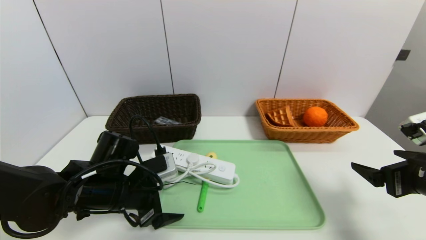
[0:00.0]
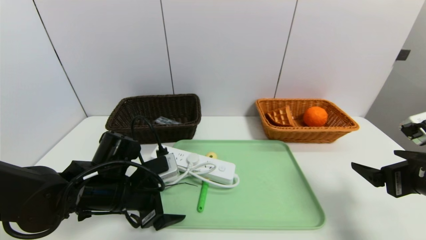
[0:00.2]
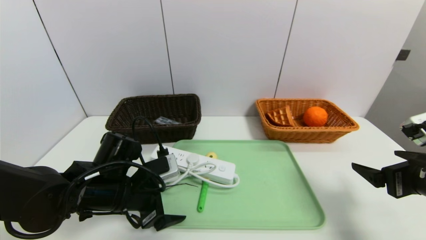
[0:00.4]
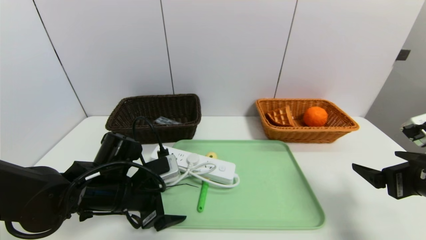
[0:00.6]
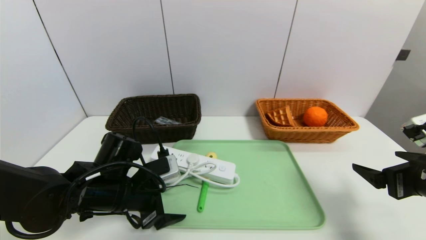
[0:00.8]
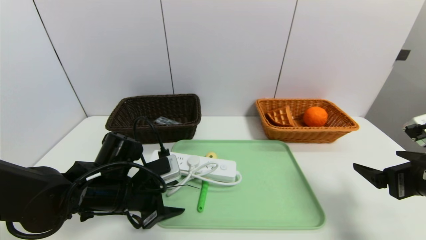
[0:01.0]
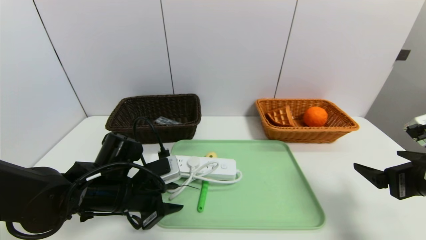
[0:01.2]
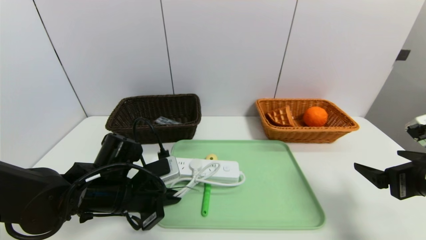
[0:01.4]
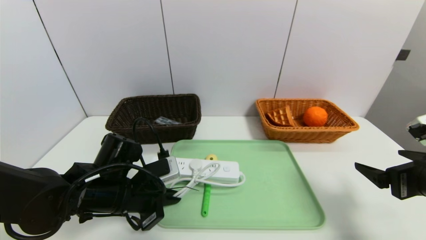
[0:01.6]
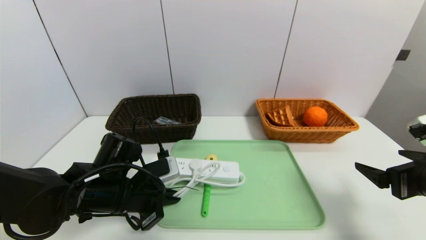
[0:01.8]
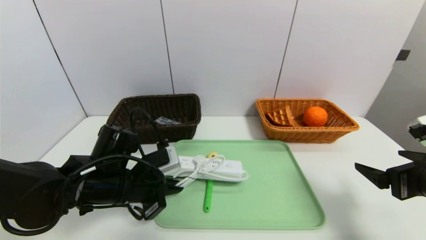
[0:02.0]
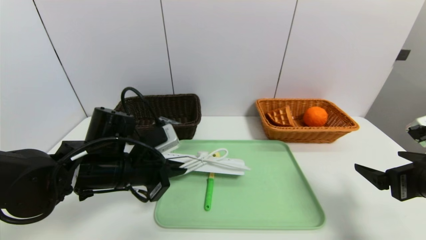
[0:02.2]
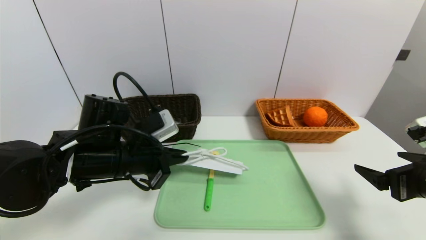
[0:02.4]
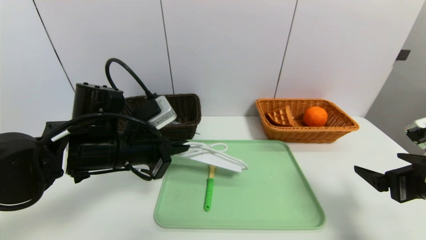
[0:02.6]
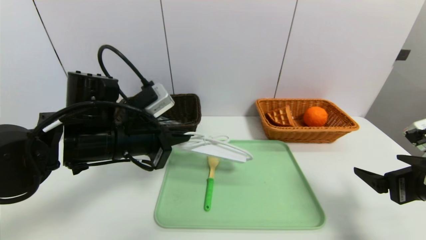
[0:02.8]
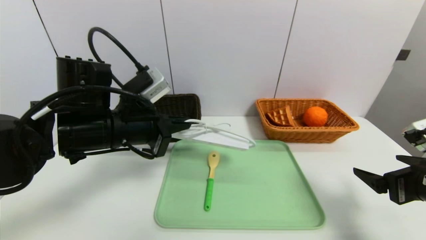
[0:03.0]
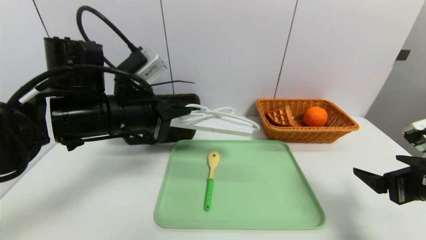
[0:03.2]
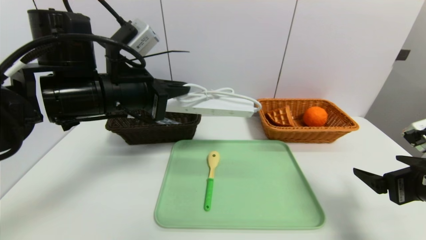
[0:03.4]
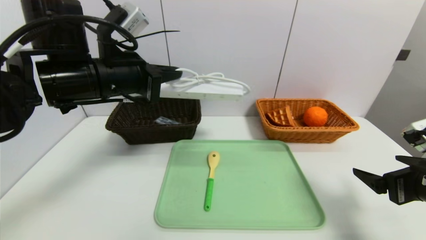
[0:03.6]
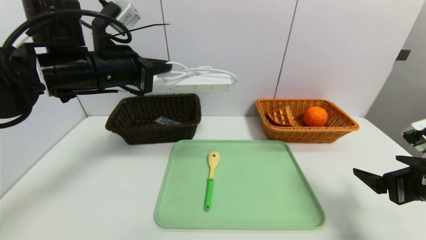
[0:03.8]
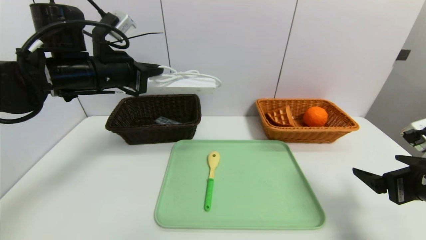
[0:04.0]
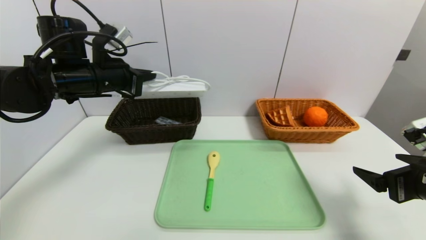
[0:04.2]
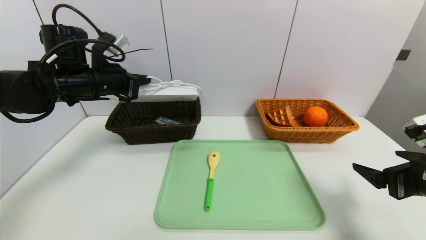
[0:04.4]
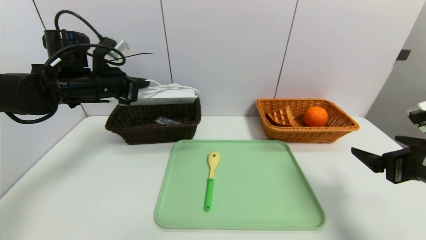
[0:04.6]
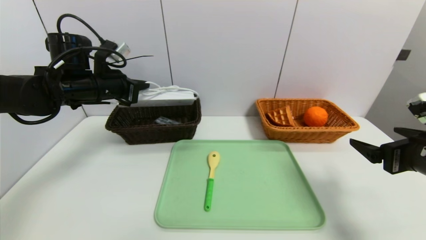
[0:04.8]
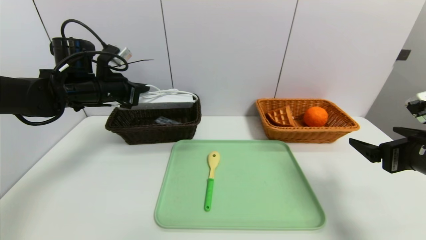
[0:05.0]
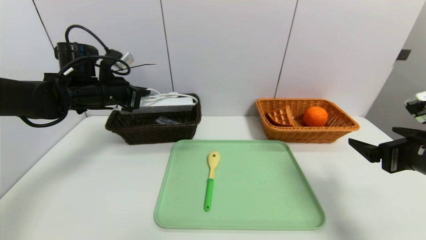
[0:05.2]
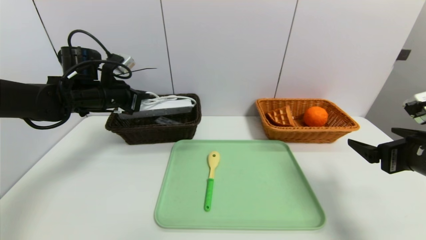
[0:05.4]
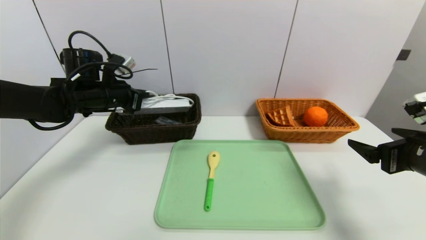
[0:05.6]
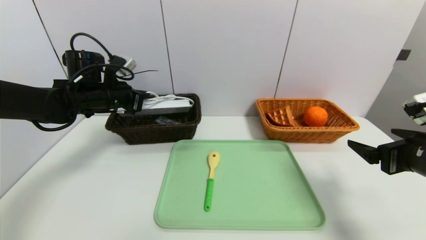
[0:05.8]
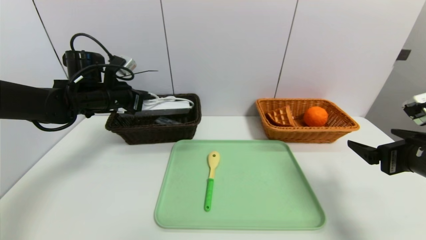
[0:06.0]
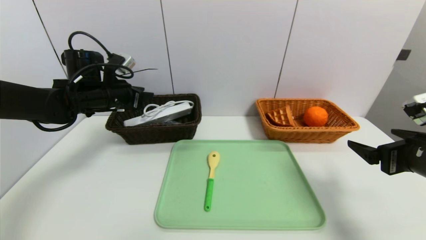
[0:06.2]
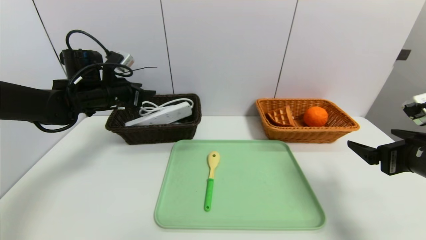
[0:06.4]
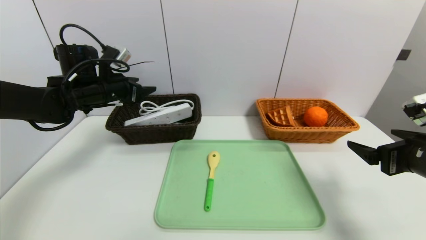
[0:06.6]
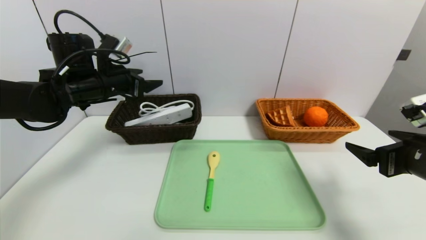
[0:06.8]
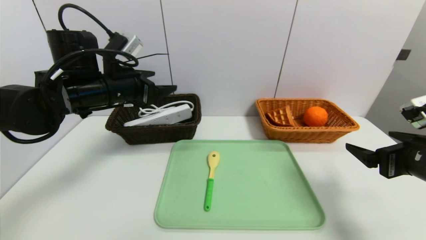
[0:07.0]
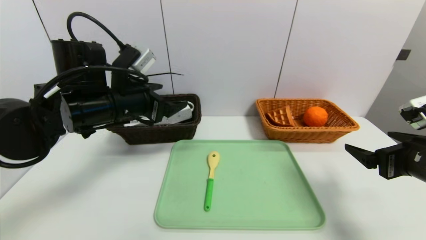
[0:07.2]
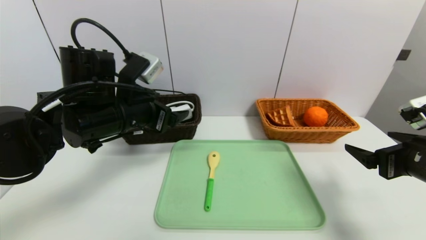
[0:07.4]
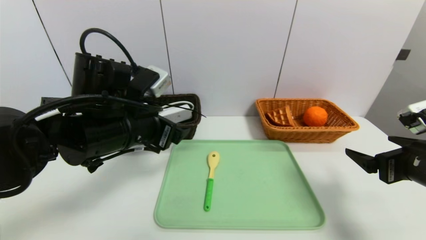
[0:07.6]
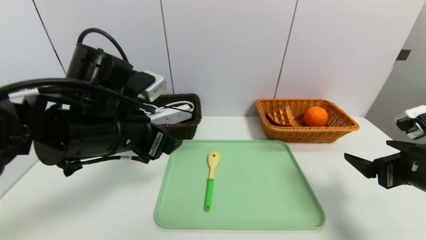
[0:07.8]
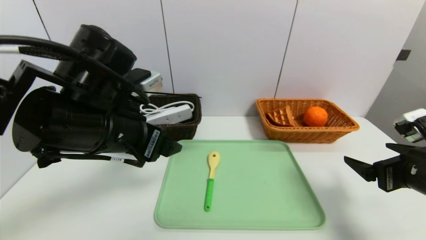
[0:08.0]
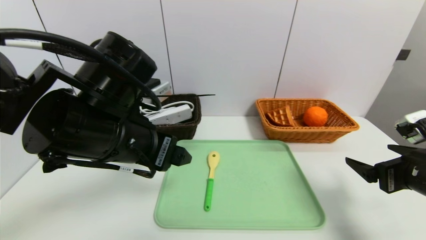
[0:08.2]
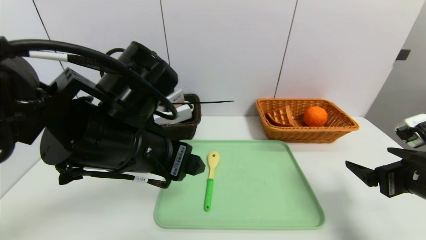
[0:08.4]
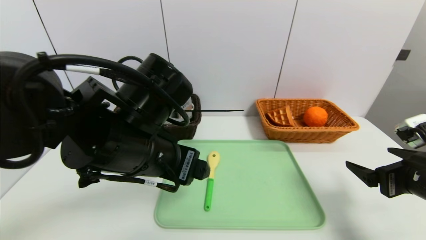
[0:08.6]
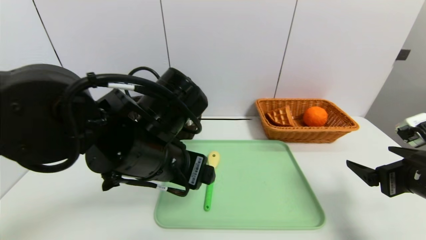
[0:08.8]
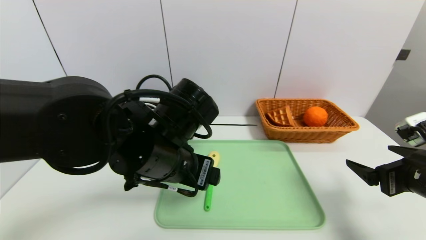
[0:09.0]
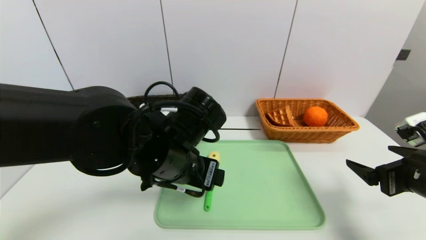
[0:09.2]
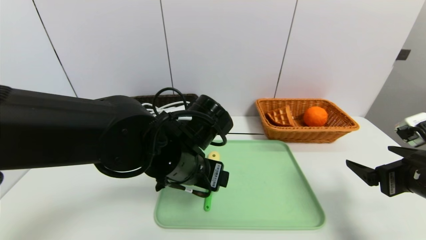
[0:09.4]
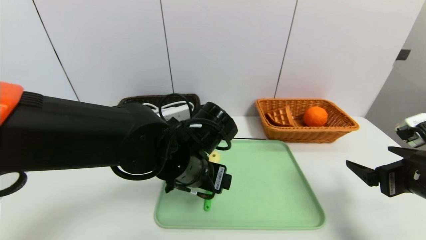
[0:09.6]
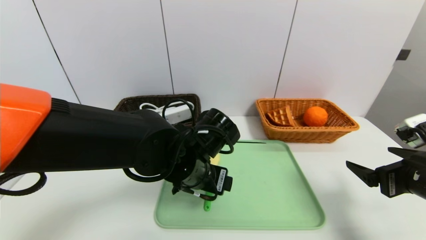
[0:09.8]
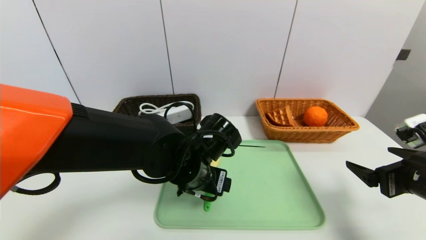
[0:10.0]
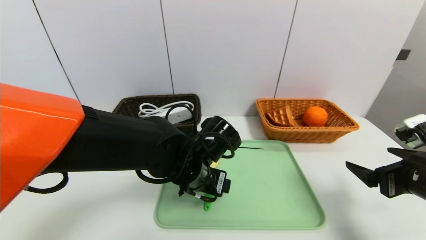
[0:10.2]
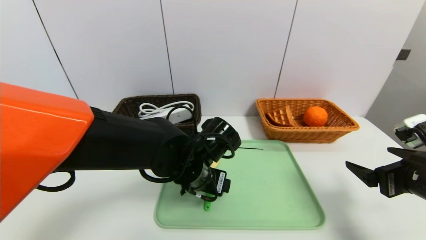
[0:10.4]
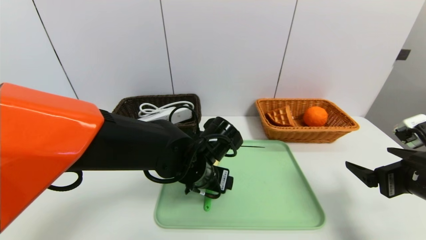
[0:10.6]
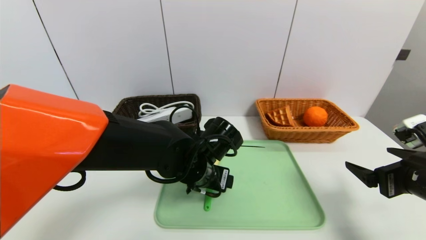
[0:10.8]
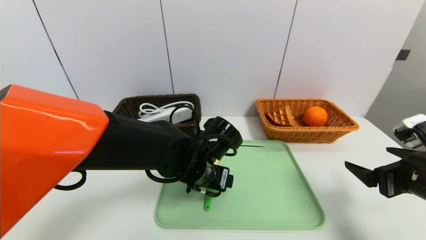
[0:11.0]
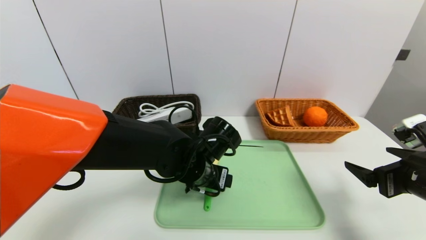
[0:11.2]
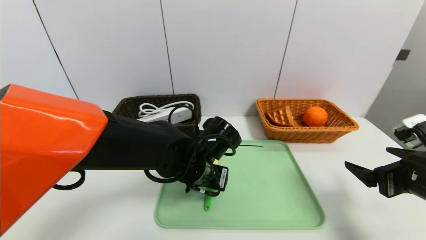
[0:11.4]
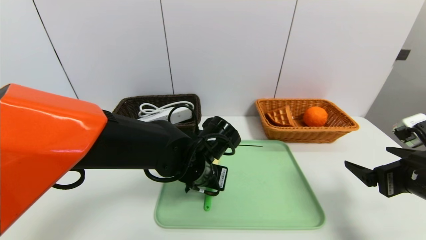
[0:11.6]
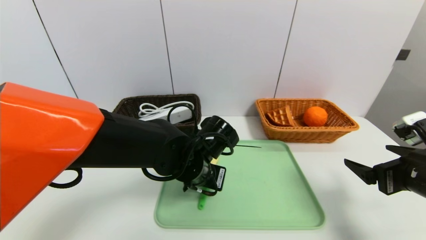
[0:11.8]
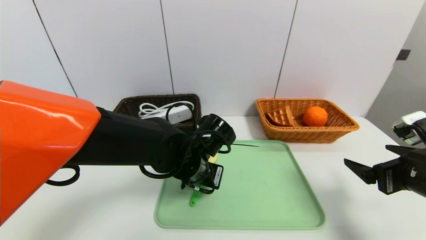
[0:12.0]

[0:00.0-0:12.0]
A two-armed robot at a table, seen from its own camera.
Task of the whole recording: place the food in the right basket with the right gripper, and place the non food items in the left basket with the left gripper.
Step, 0:00.0 to 0:06.6: Grasp the power strip and put it in the left basket.
0:00.0 to 0:01.6: The left gripper closes up.
0:01.6 to 0:03.0: The left gripper is displaced upward by about 15 cm.
0:03.0 to 0:04.4: The left gripper moves forward and to the left, roughly 15 cm.
0:04.4 to 0:06.0: The left gripper changes place by approximately 5 cm.
0:06.0 to 0:07.6: The left gripper travels backward and to the right by about 20 cm, and opens.
0:07.6 to 0:09.0: The left gripper is displaced to the right by some 5 cm.
0:09.0 to 0:10.4: The left gripper moves downward, about 10 cm.
0:10.4 to 0:12.0: The left gripper closes its fingers.

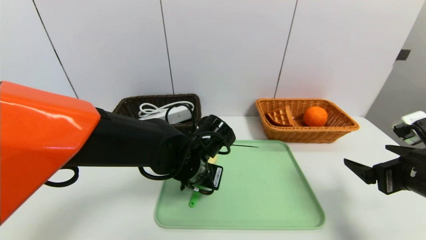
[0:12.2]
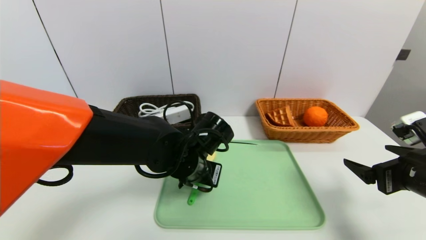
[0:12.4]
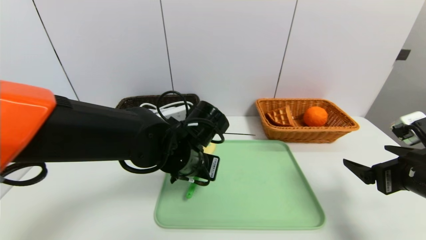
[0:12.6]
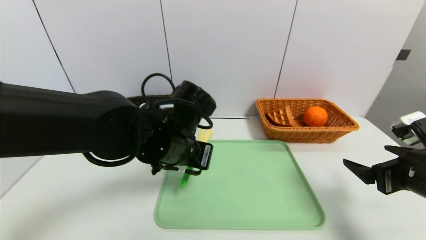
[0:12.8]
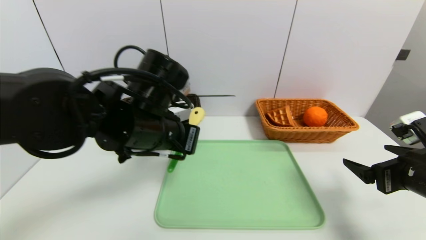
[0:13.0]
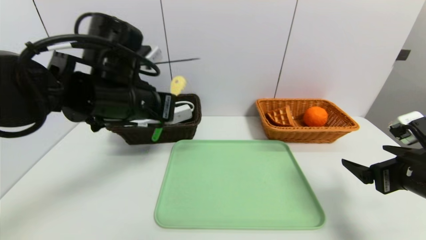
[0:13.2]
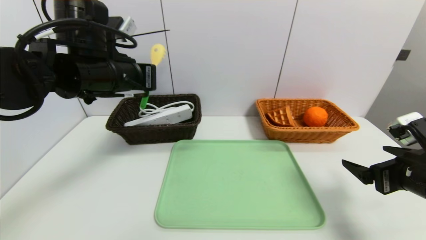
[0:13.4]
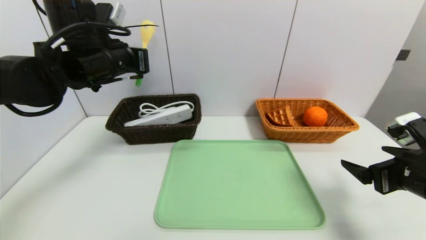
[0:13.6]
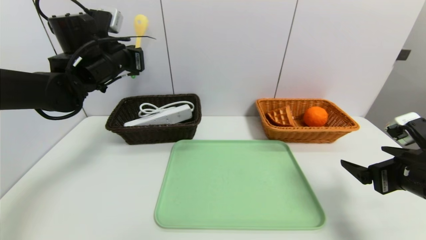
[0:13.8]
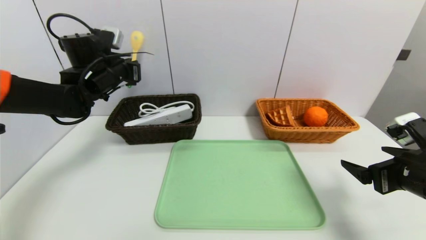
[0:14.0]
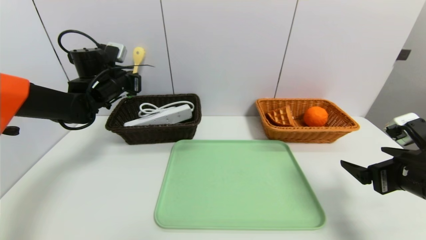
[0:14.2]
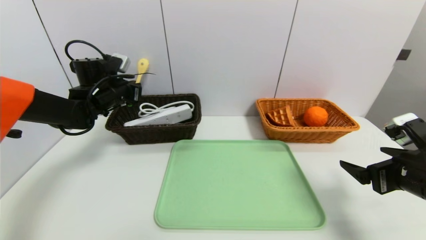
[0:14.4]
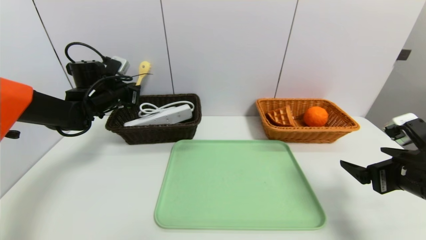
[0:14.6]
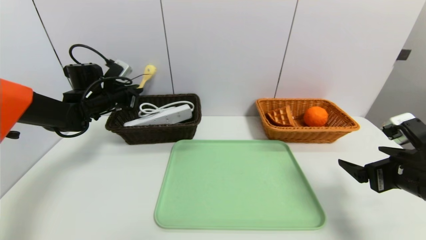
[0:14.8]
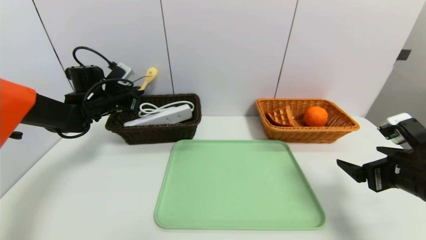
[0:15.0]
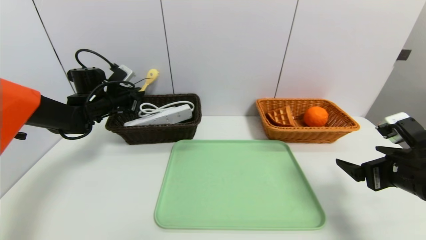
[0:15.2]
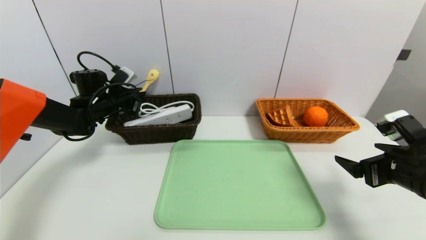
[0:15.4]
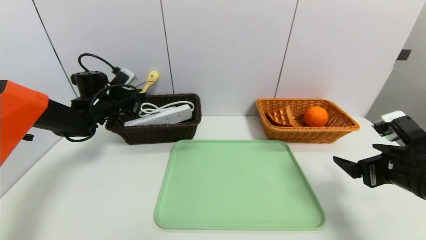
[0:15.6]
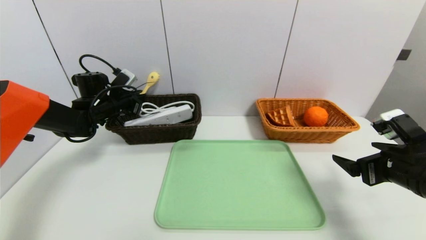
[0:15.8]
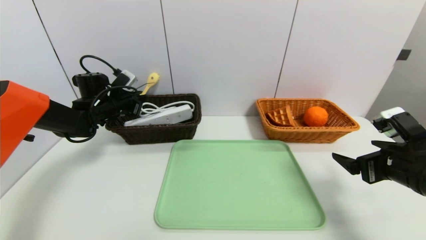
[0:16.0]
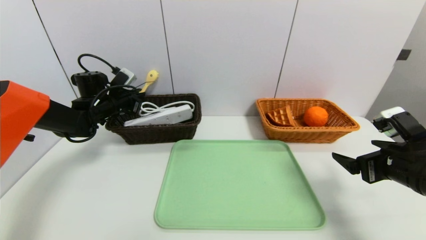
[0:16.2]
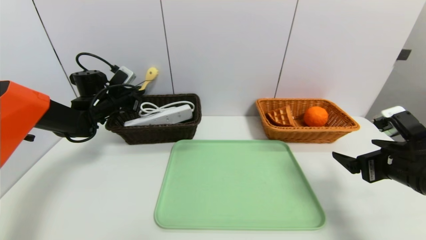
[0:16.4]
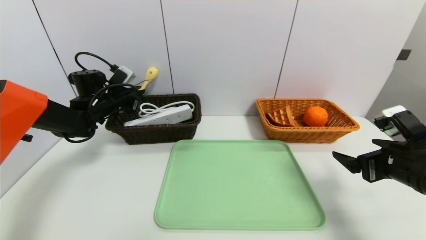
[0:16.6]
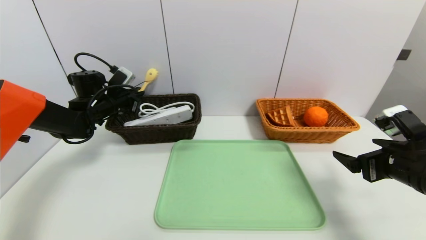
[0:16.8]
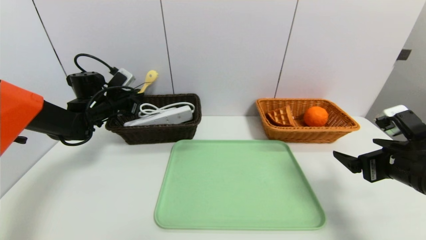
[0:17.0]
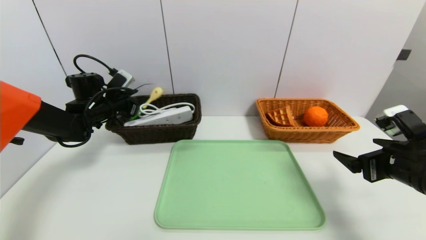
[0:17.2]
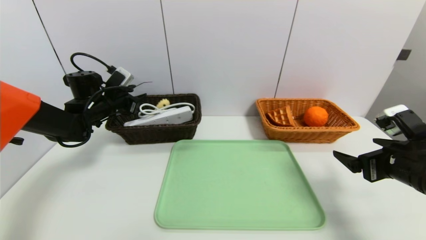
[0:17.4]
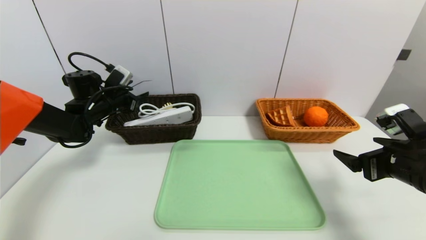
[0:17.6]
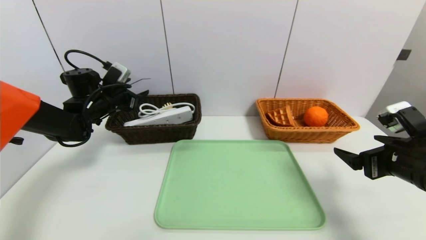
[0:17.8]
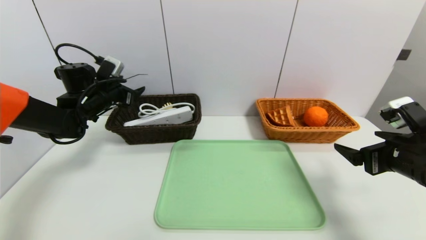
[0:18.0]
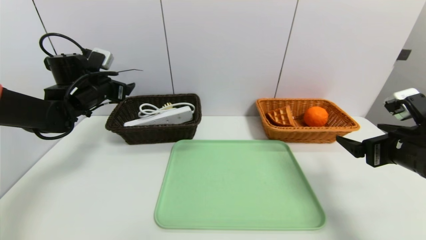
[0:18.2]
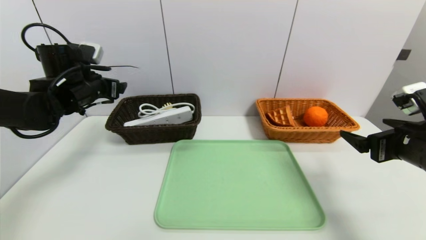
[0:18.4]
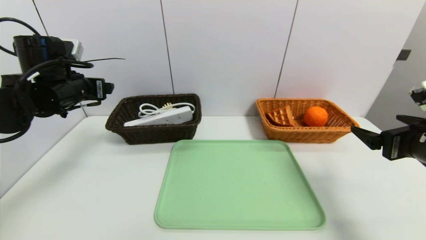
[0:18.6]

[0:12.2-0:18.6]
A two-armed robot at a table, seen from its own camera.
Task of the whole recording: place the food in the right basket with the right gripper, and place the non food items in the left basket with the left gripper.
Step, 0:12.2 to 0:18.0: Grasp the back scratcher and put it in the left basket.
0:12.2 to 0:13.8: The left gripper shifts about 25 cm to the left, upward and forward.
0:13.8 to 0:15.4: The left gripper heads downward, forward and to the left, covering roughly 15 cm.
0:15.4 to 0:17.0: Both grippers stay about where they are.
0:17.0 to 0:18.6: The left gripper goes about 15 cm backward and upward, and opens.
